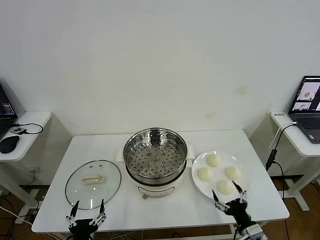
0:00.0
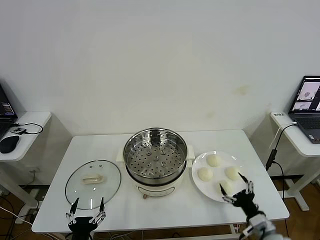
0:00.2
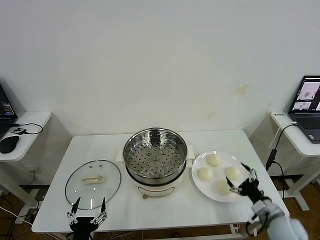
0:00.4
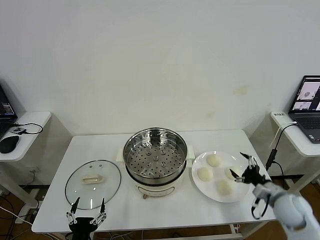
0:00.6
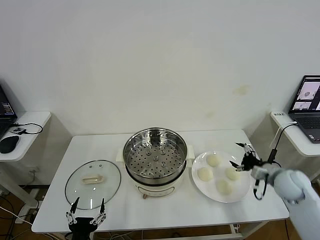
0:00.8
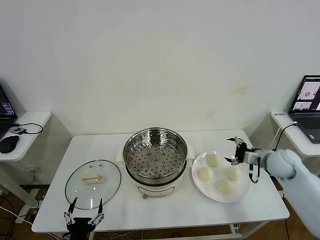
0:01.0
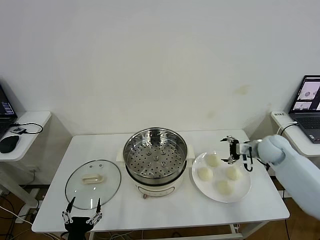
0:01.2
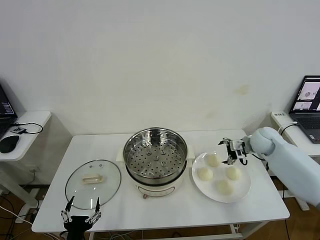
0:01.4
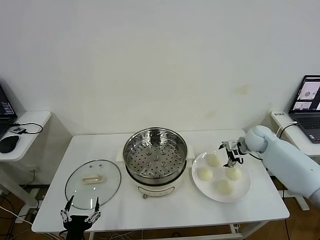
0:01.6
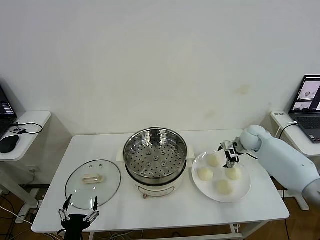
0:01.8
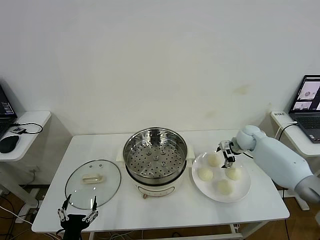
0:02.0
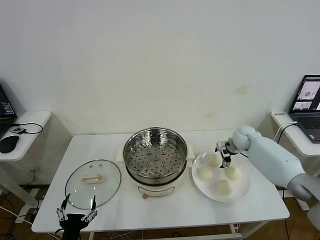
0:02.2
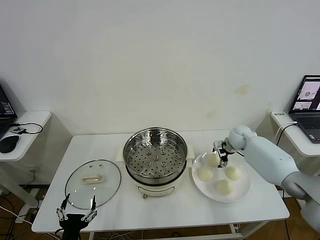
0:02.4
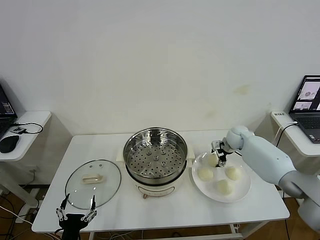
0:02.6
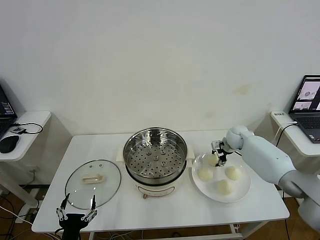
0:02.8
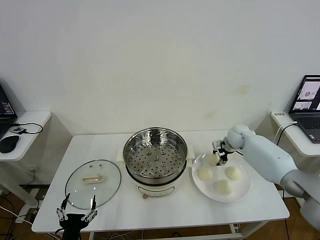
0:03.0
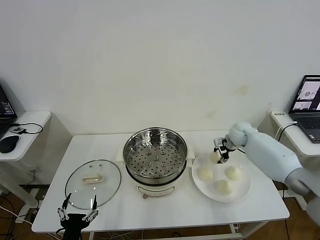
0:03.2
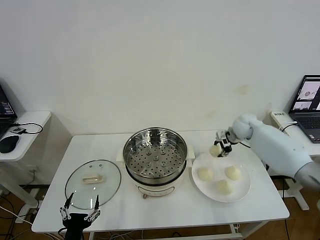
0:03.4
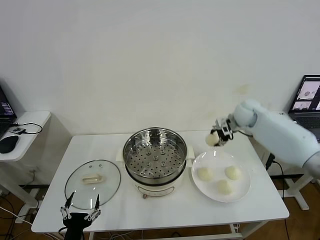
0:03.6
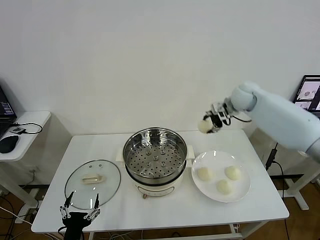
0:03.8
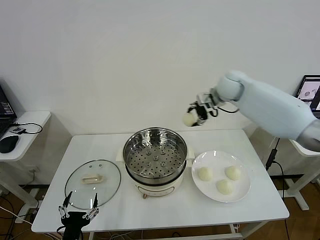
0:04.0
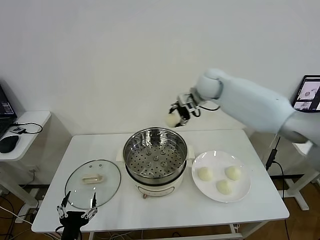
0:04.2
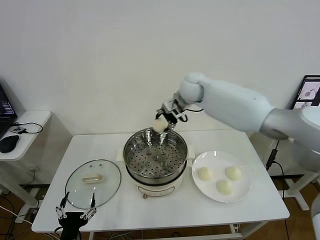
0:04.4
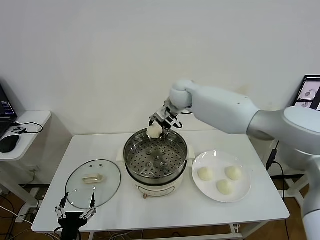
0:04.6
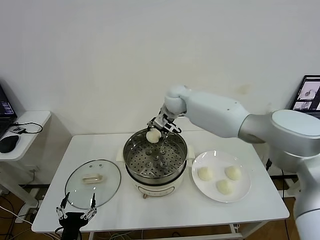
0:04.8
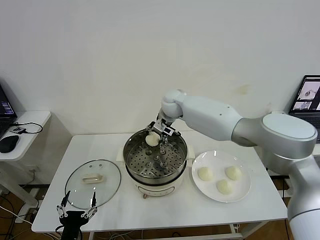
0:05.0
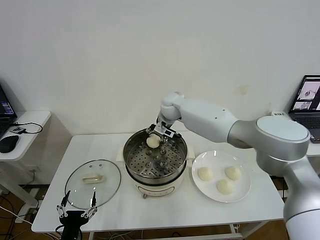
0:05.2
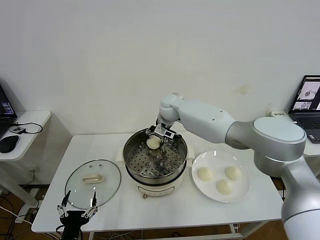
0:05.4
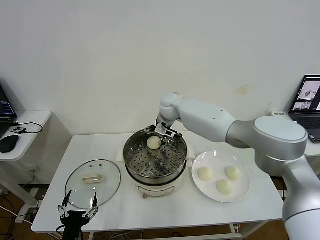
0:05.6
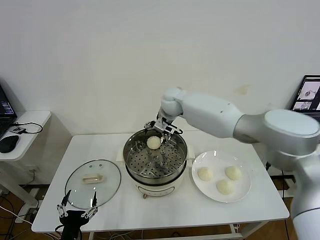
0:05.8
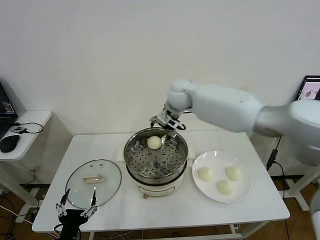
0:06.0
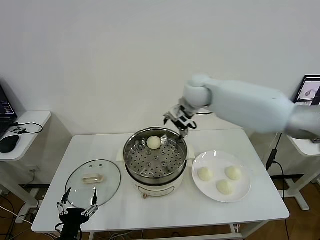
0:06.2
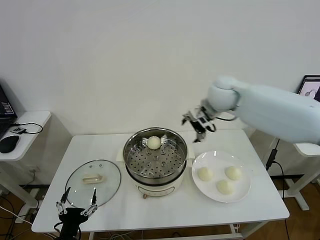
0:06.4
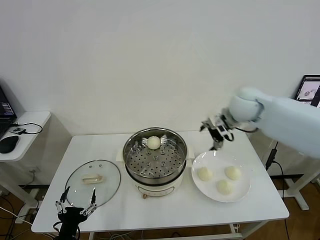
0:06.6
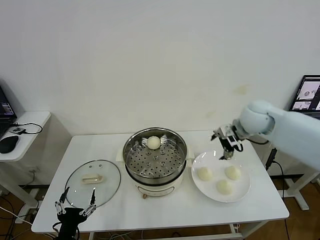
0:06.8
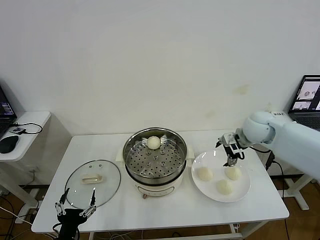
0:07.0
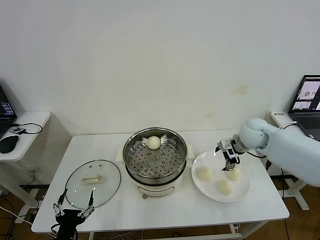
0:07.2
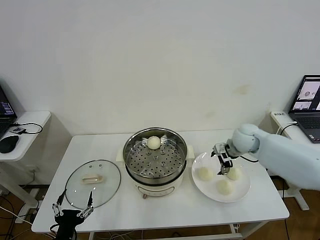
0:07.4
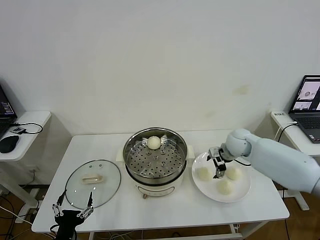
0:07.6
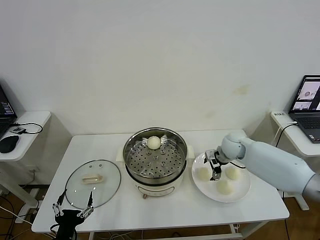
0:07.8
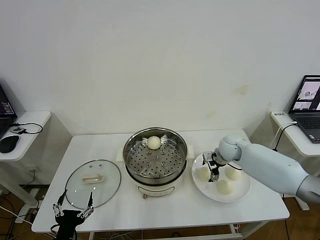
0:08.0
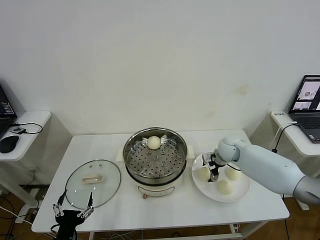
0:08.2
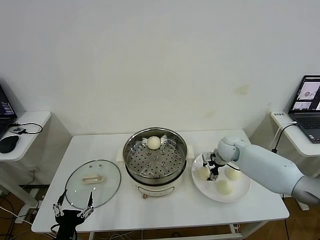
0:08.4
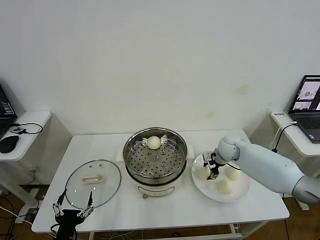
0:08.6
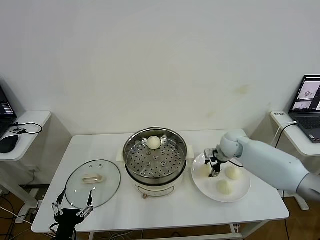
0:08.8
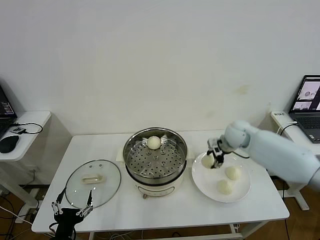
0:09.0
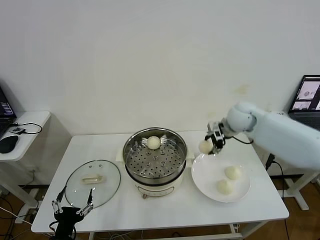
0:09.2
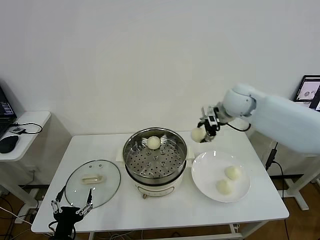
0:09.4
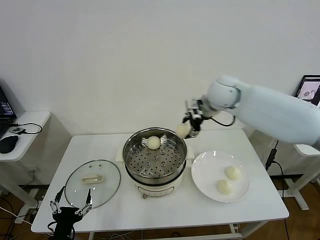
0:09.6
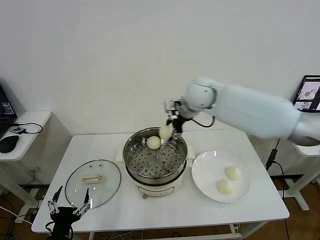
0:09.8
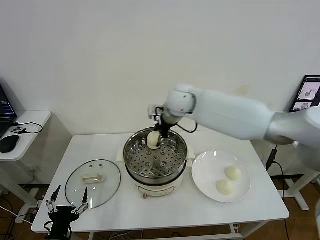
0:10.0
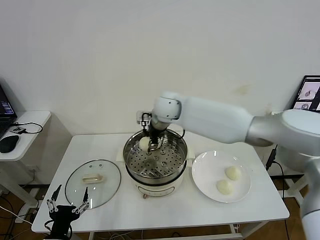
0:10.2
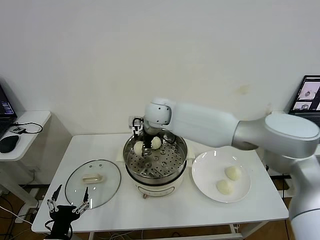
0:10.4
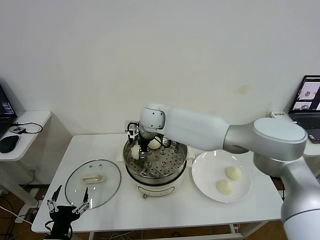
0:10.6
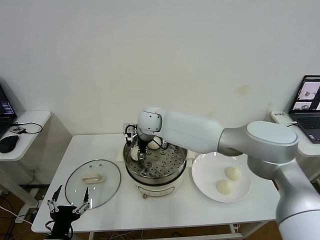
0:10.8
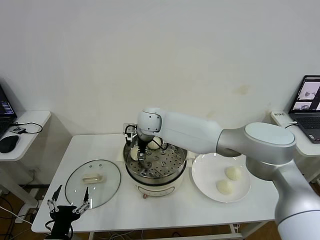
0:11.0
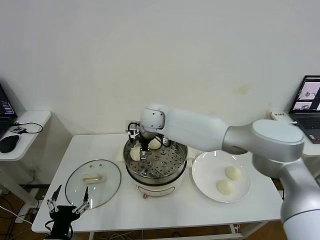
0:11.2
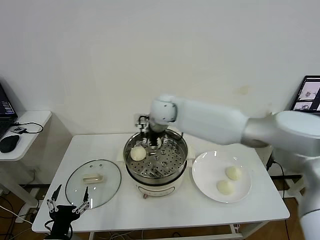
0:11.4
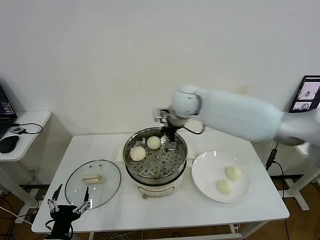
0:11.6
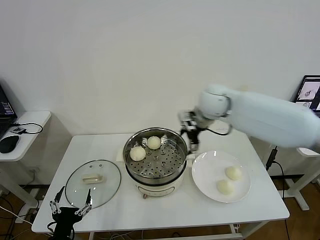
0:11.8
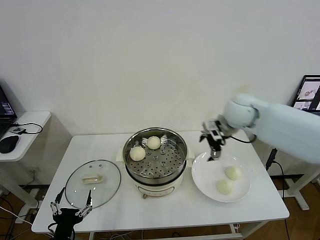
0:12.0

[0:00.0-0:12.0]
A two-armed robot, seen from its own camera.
Step, 0:00.0 to 0:02.6: Grasp the baozi in the plate with right gripper.
Step, 0:02.8 to 0:05.4: Place the baozi on the steamer with right gripper.
Step, 0:05.6 to 0:08.4: Grasp the baozi in the plate with right gripper.
Step, 0:08.6 to 0:11.0: Place the baozi on the steamer with right gripper.
0:01.6 to 0:03.0: The right gripper moves approximately 5 cm, and closes.
0:03.0 to 0:04.4: The right gripper shifts roughly 30 cm to the left and upward.
0:04.4 to 0:06.0: The right gripper goes downward and returns, roughly 5 cm each way, and opens.
0:06.0 to 0:07.6: The right gripper goes about 25 cm downward and to the right.
0:07.6 to 0:09.0: The right gripper shifts some 10 cm upward, and closes.
0:09.0 to 0:10.4: The right gripper is displaced to the left by some 30 cm.
0:10.4 to 0:12.0: The right gripper moves to the right, approximately 30 cm, and opens its fingers.

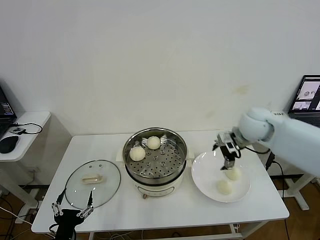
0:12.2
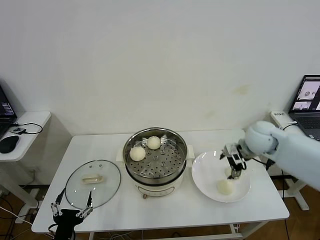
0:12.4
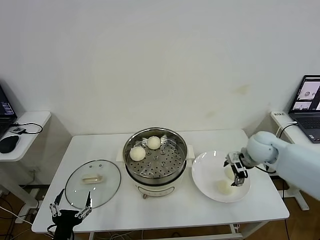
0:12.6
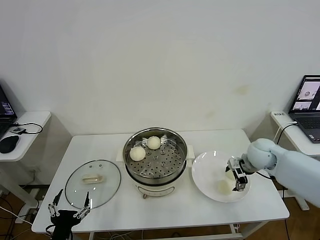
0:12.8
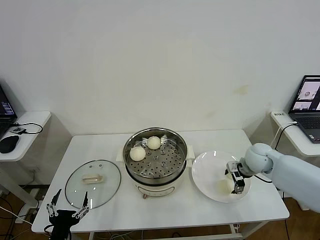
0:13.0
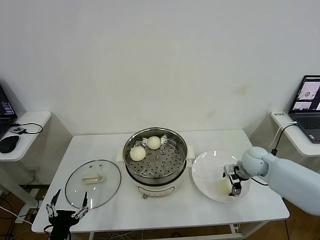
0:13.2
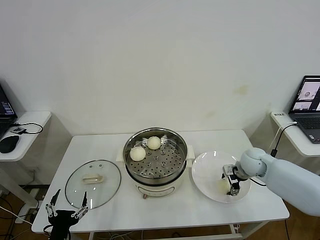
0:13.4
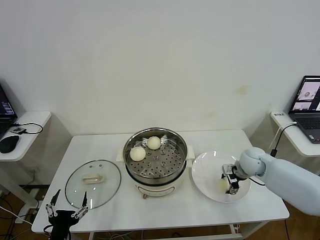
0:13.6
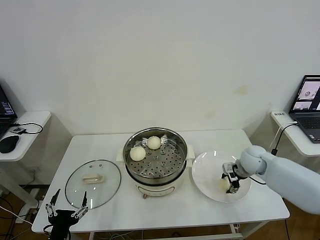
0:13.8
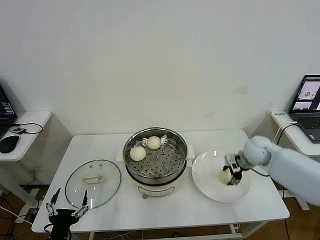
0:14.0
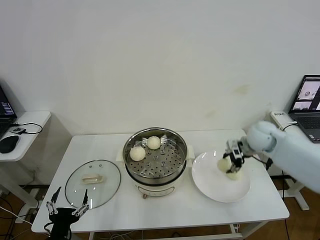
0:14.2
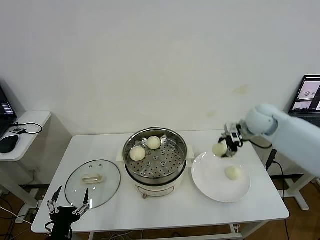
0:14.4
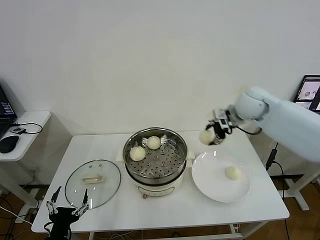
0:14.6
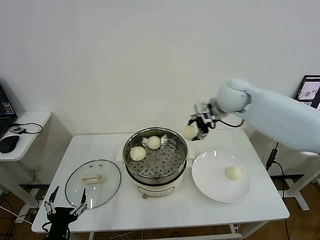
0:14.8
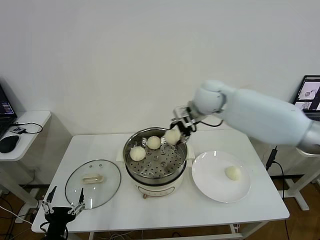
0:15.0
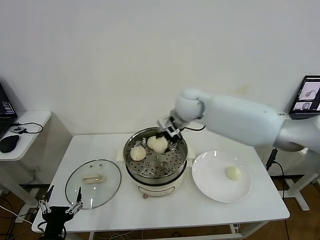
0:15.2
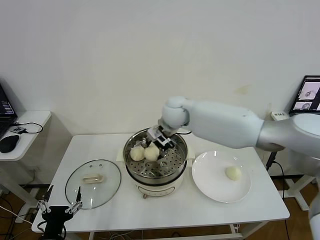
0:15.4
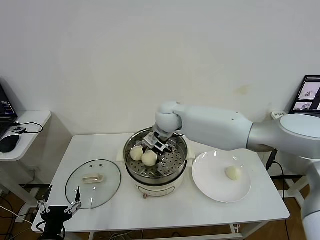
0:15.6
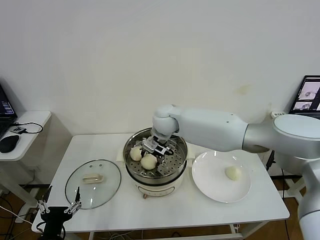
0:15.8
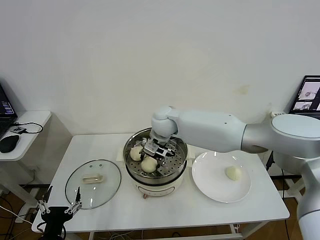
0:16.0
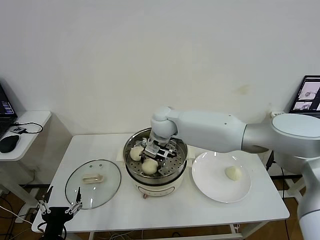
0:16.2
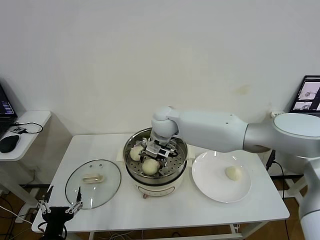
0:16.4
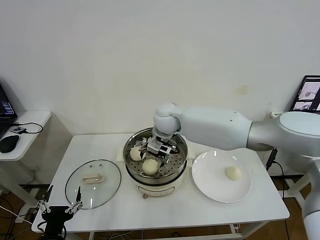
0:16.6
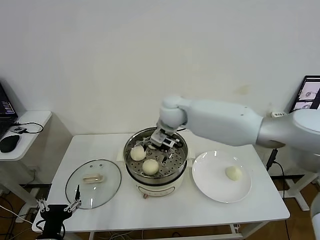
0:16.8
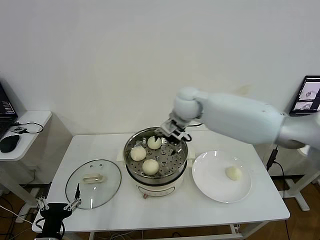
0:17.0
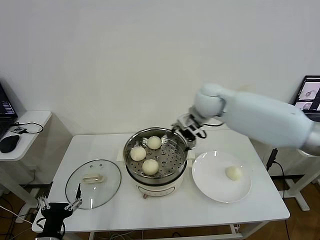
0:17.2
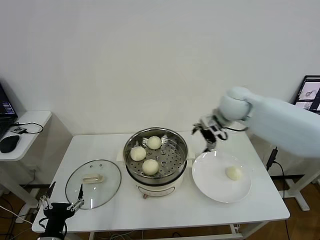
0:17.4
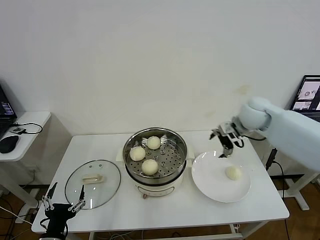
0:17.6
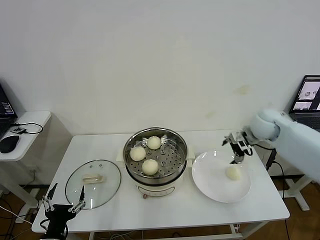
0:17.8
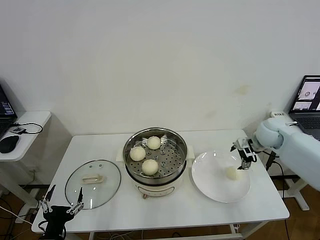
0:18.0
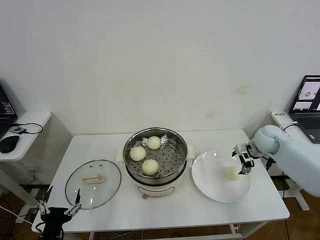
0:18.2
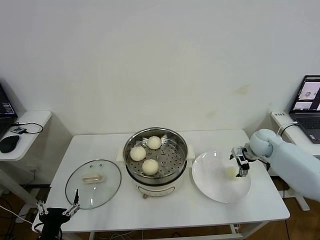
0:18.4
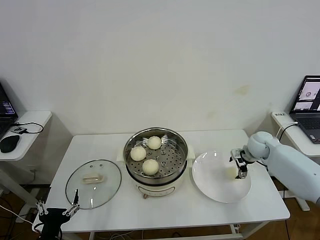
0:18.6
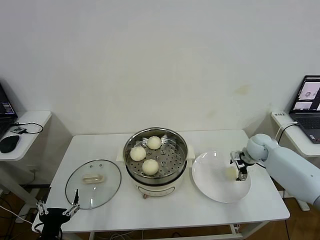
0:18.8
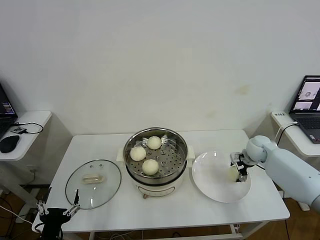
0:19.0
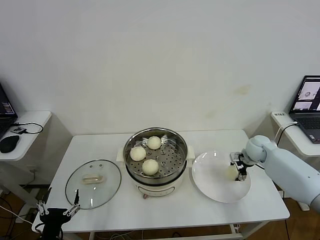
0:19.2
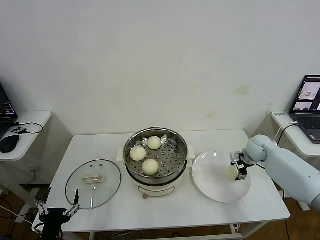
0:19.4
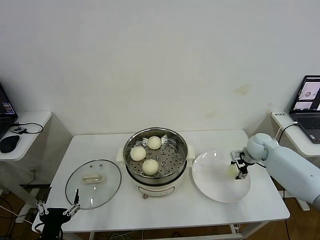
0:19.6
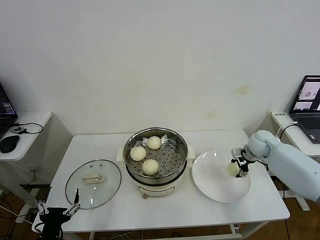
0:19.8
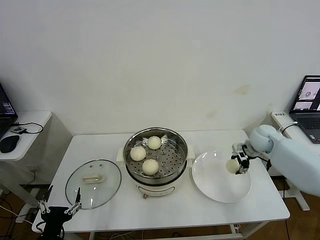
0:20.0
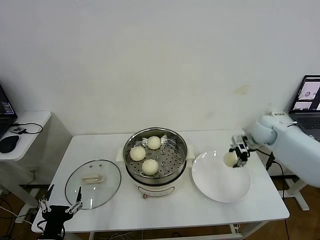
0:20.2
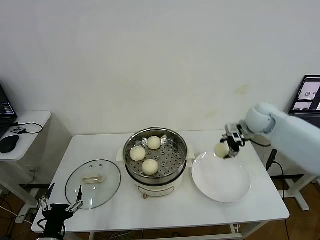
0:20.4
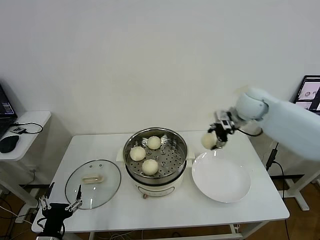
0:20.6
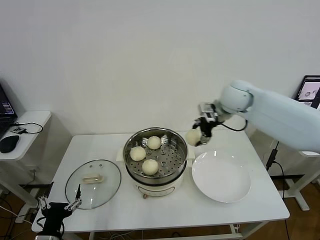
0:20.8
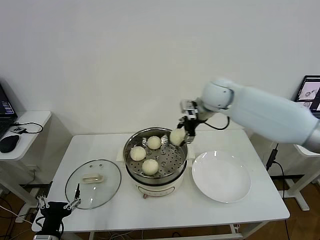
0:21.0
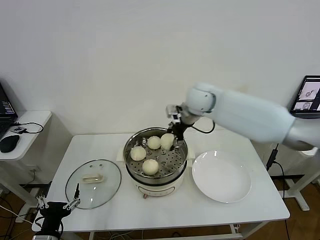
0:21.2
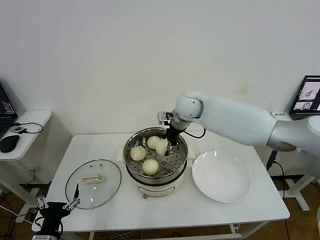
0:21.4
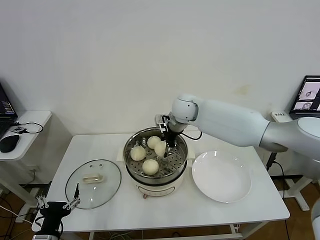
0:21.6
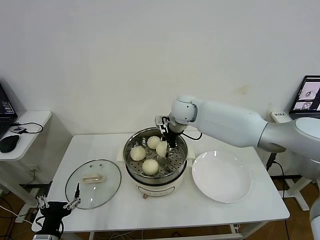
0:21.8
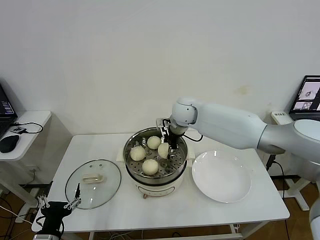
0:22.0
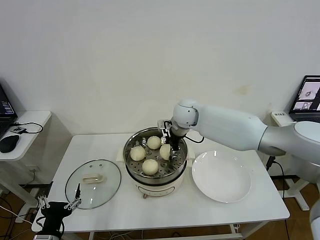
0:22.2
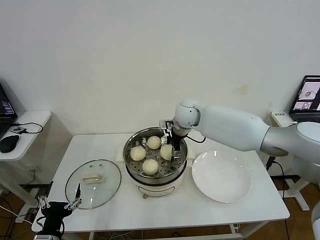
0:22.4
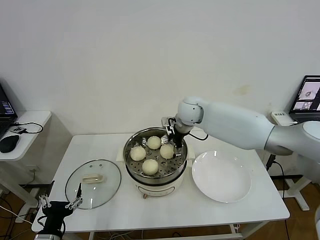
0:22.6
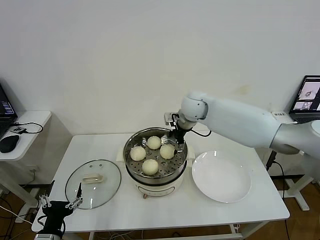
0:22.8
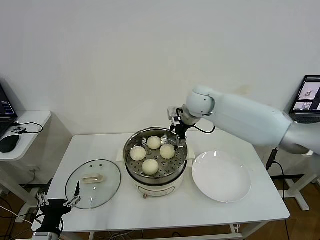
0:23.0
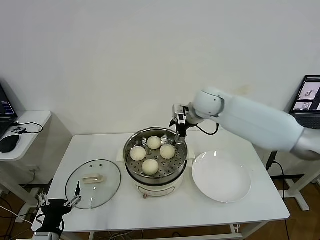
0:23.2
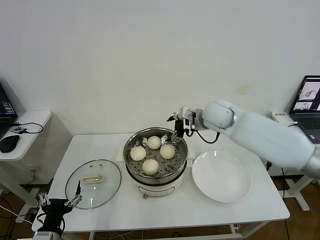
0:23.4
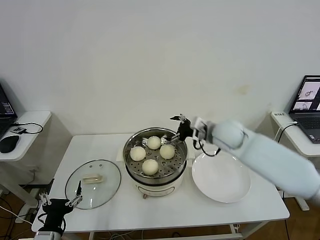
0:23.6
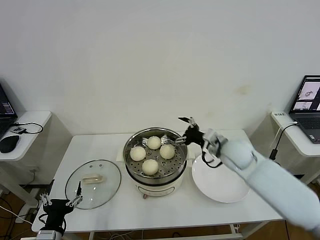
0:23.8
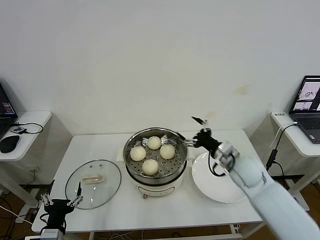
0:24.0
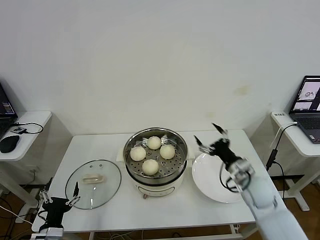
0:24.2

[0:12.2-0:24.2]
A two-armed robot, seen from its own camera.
Step, 0:12.2 to 0:13.6: Grasp the baozi in the plate with right gripper.
Step, 0:13.8 to 0:16.4: Place the baozi on the steamer with right gripper.
Step, 0:16.6 to 0:19.4: Grasp the baozi in the plate with right gripper.
Step, 0:19.6 to 0:22.4: Place the baozi on the steamer with right gripper.
0:12.2 to 0:13.8: The right gripper heads downward, covering about 10 cm, and closes up.
0:13.8 to 0:15.2: The right gripper shifts approximately 30 cm to the left and upward.
0:15.2 to 0:16.6: The right gripper opens its fingers.
0:16.6 to 0:18.2: The right gripper goes some 35 cm to the right.
0:18.2 to 0:19.8: The right gripper closes up.
0:19.8 to 0:21.2: The right gripper goes about 30 cm to the left and upward.
0:21.2 to 0:22.6: The right gripper opens up.
0:22.6 to 0:24.2: The right gripper travels backward, to the right and downward by about 35 cm.
